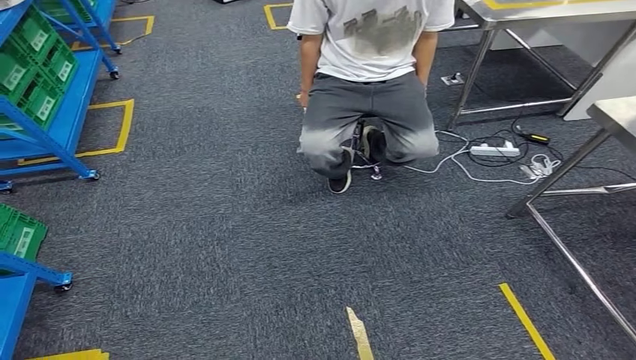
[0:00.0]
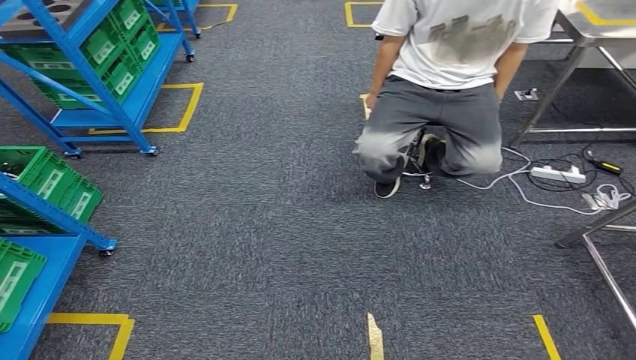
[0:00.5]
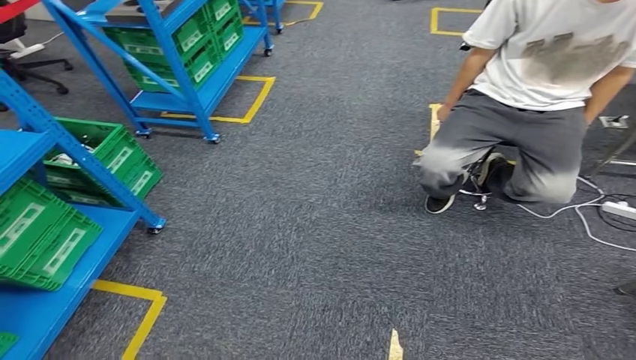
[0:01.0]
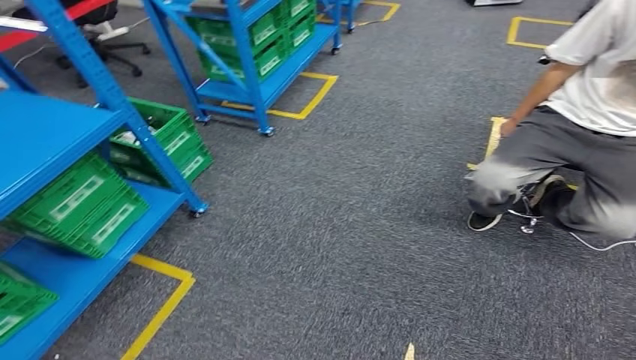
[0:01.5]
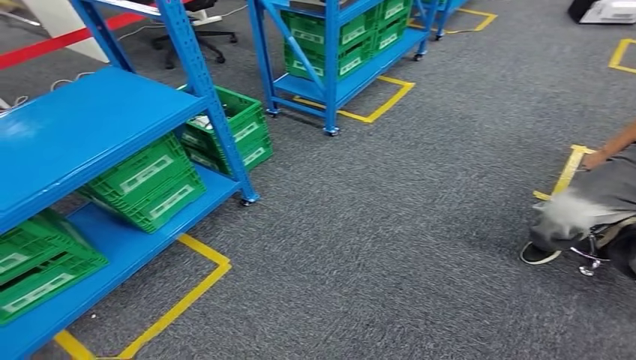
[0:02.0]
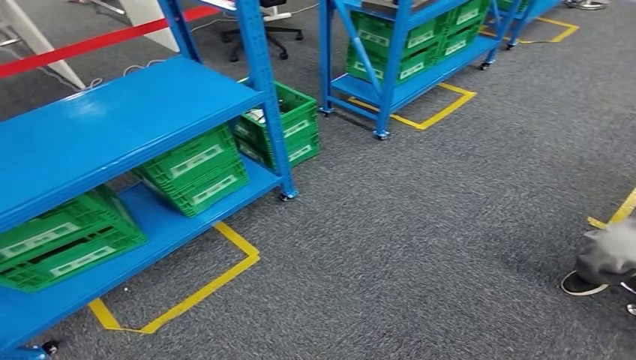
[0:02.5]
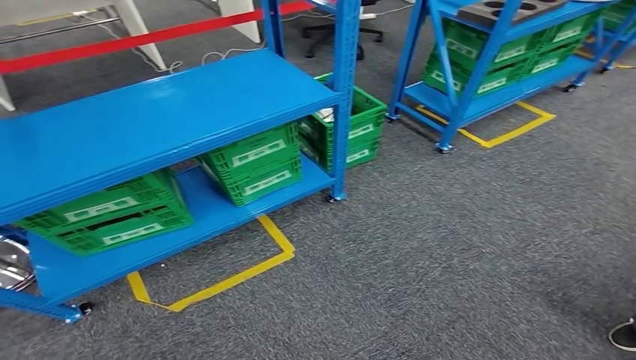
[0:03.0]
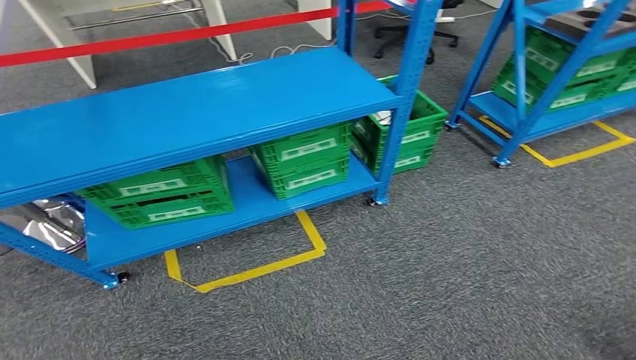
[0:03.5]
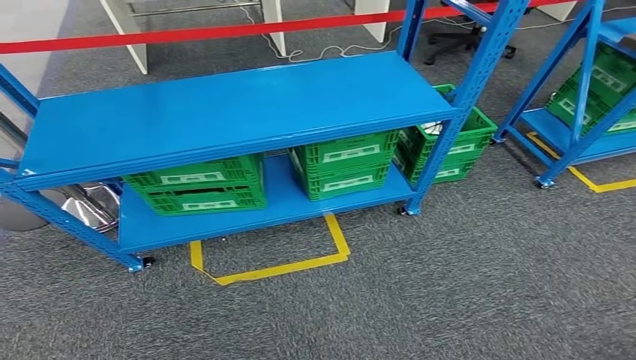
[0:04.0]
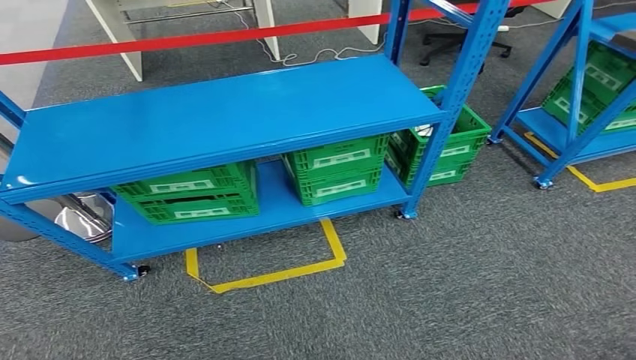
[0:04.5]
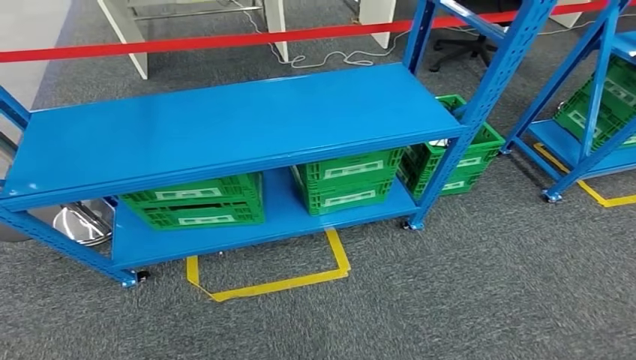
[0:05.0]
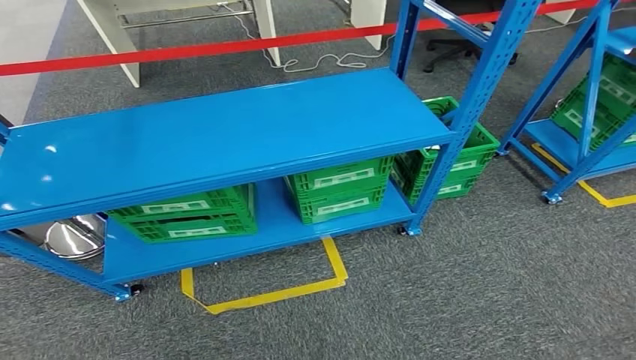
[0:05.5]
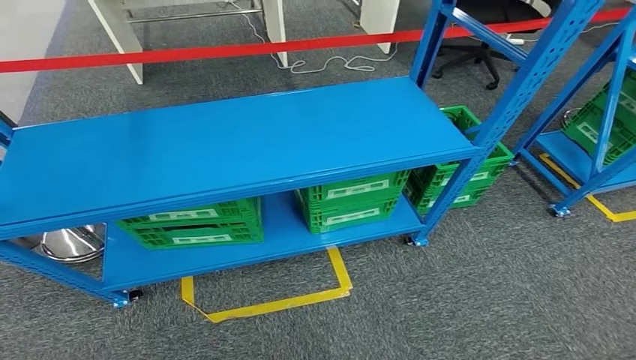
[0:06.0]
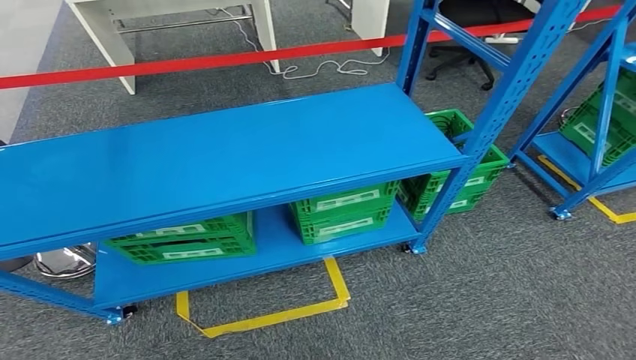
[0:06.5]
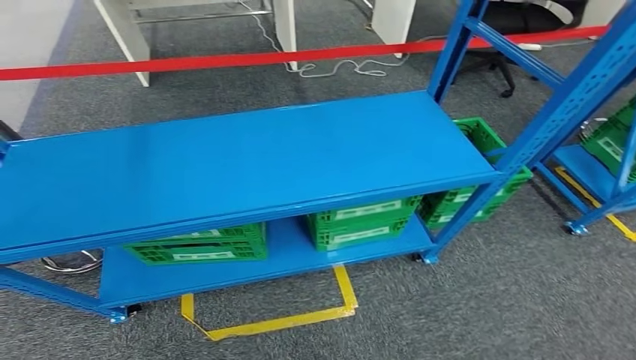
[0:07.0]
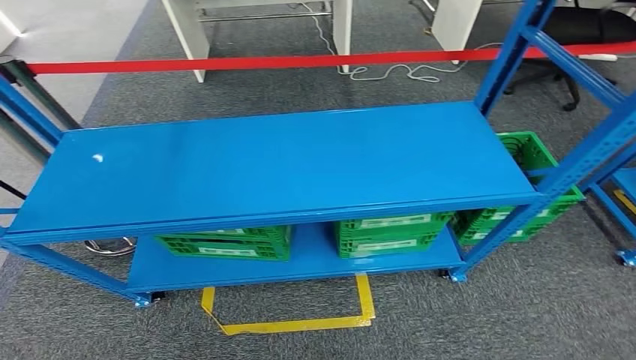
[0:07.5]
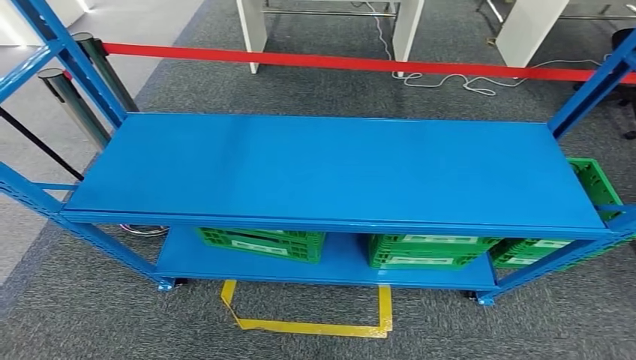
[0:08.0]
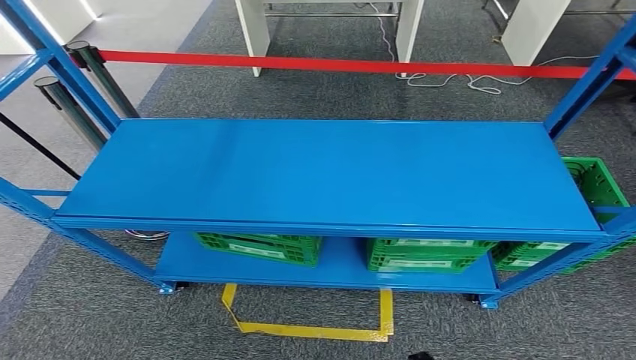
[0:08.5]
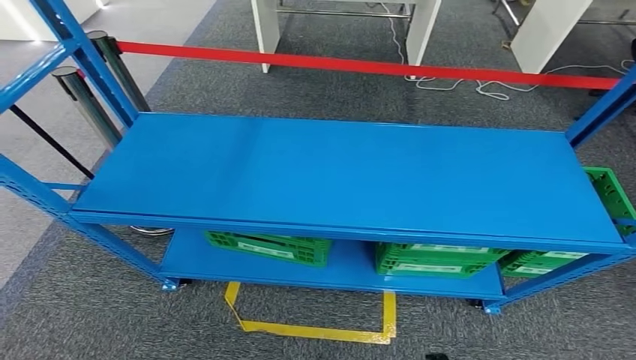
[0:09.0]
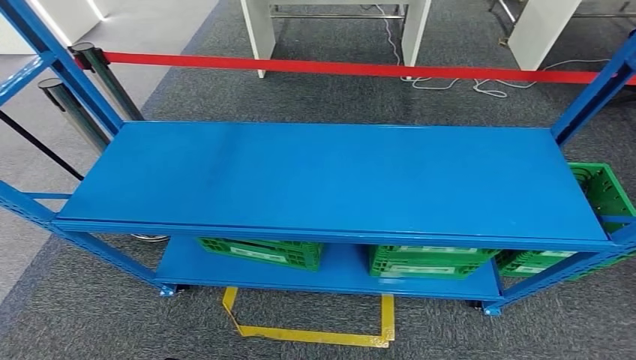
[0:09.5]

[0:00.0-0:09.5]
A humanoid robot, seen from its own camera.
Step, 0:00.0 to 0:09.5: Return to the initial position at the workbench.
